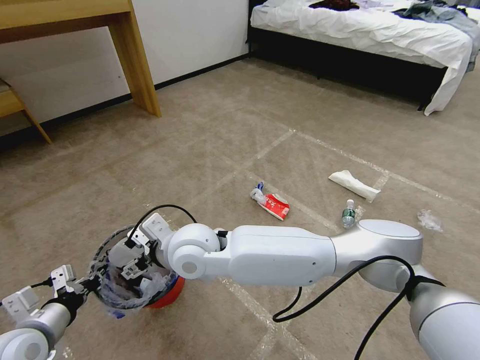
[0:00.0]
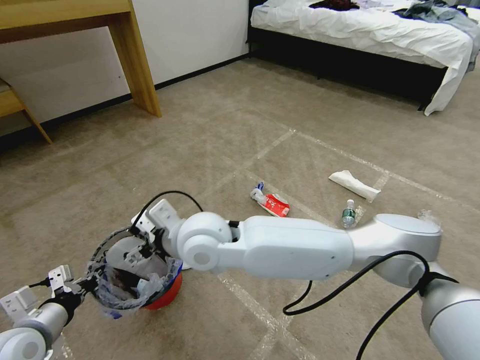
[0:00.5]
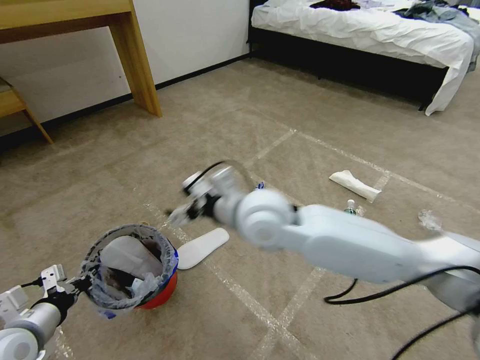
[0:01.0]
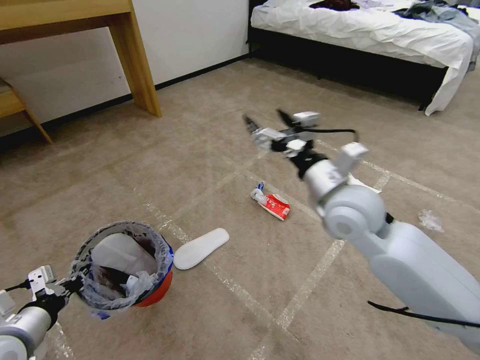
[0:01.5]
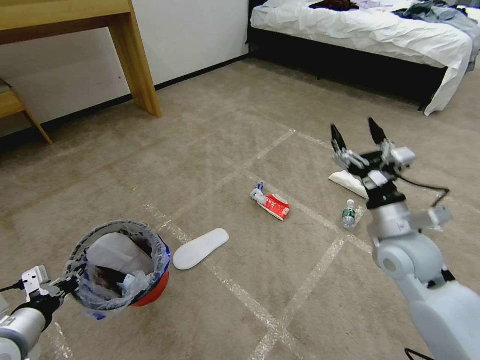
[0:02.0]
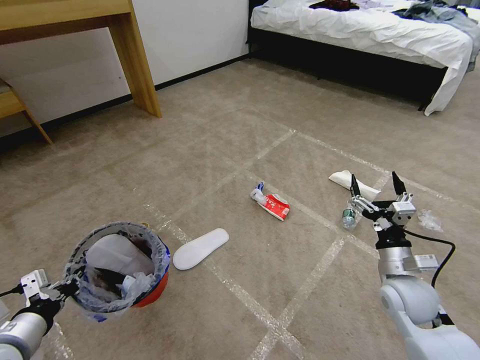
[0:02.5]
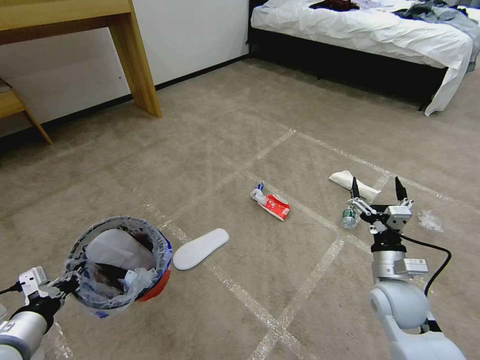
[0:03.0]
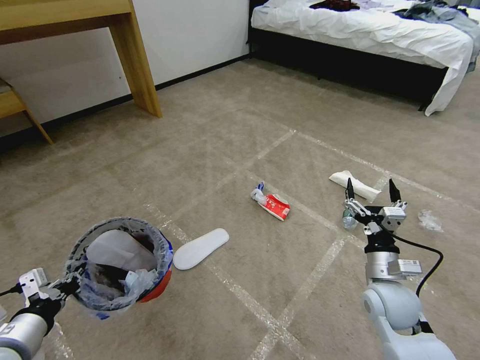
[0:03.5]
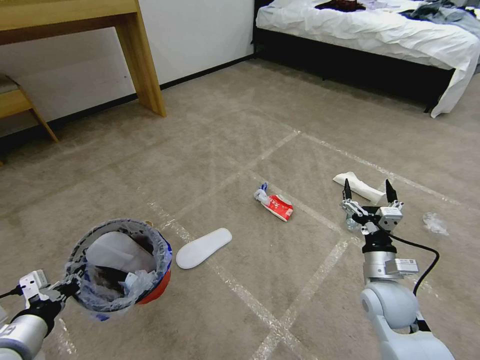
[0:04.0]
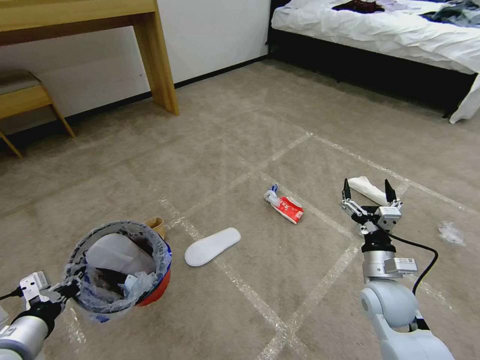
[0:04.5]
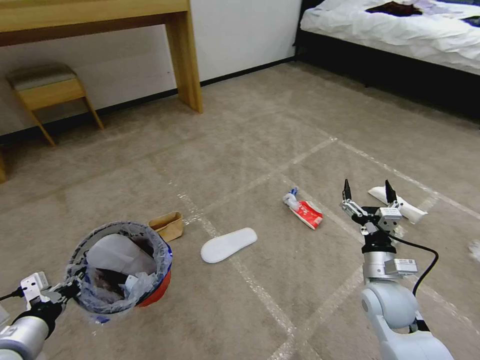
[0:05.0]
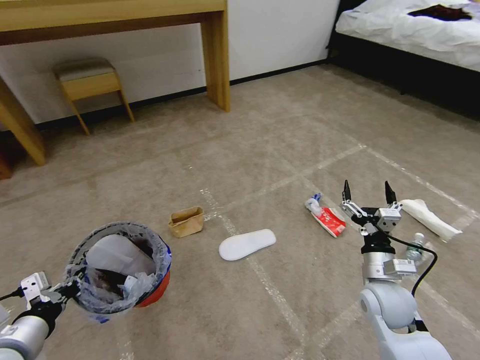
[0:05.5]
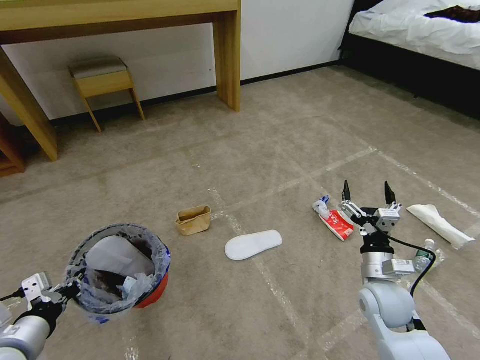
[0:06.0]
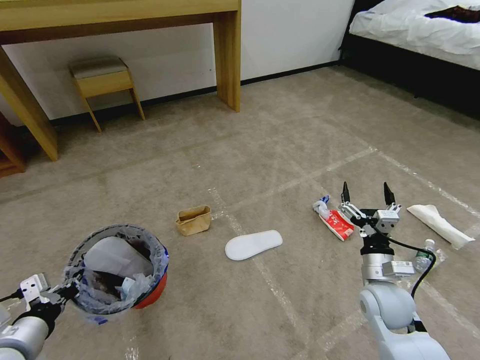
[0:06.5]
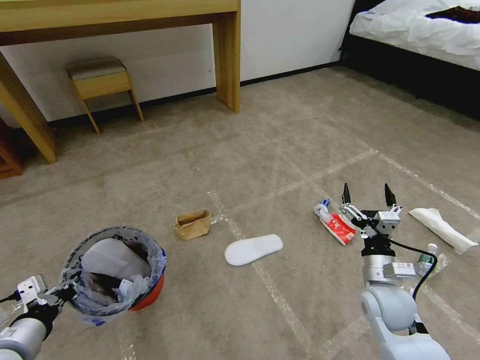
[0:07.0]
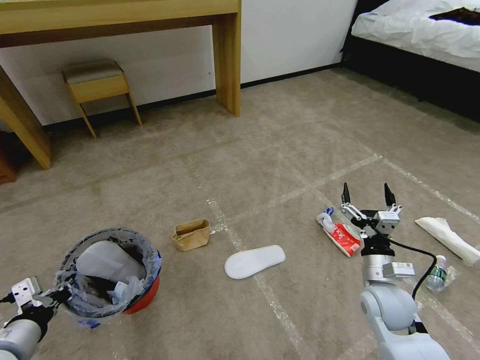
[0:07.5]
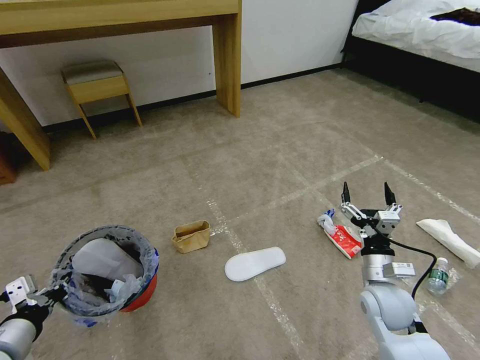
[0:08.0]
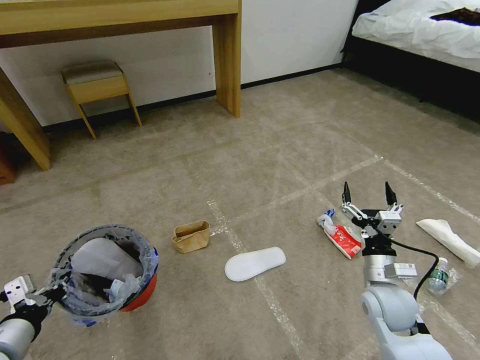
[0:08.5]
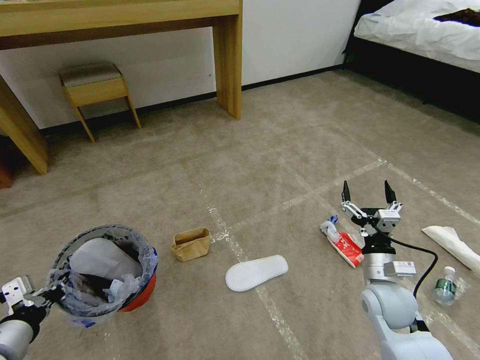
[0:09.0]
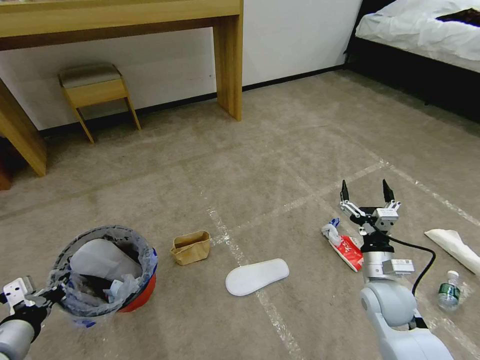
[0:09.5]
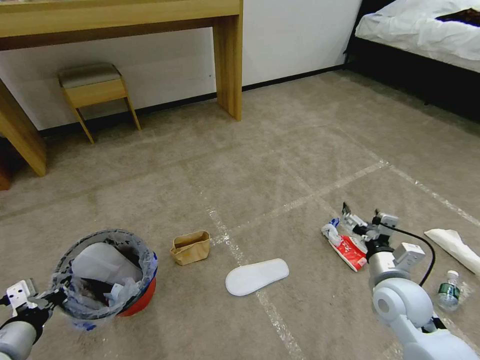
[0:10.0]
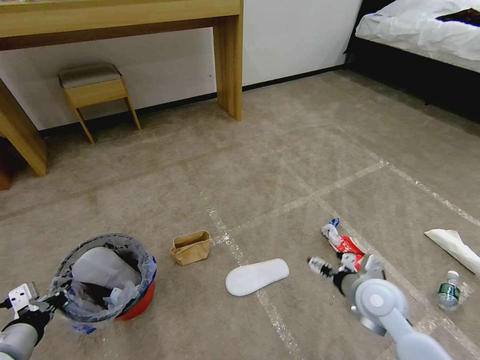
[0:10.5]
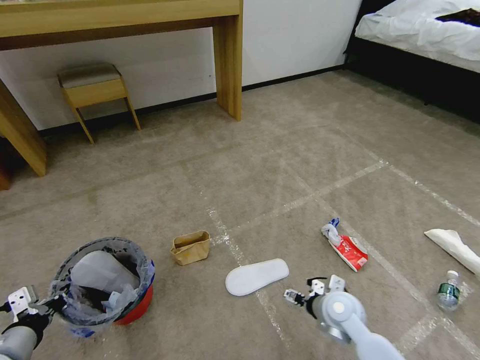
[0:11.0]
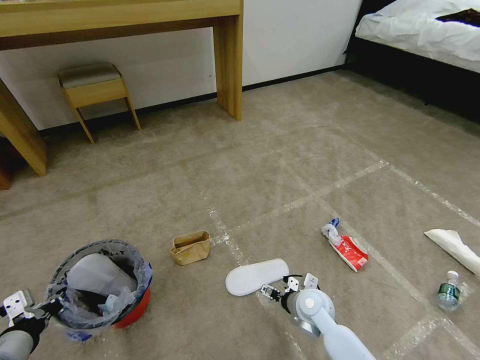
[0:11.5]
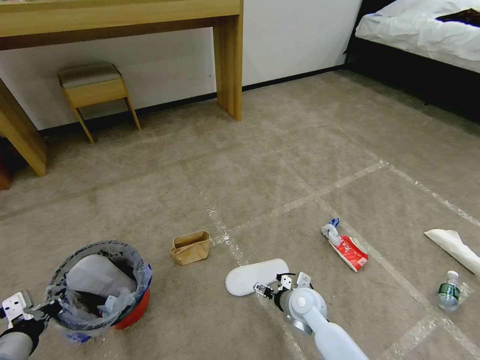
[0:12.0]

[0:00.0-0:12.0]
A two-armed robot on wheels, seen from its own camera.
Task of the whole recording: Pick up the trash bin and place the garbage on the floor into it.
0:00.0 to 0:02.0: The right gripper heads to the right, covering some 40 cm.
0:02.0 to 0:04.0: The right gripper travels downward by about 15 cm.
0:06.0 to 0:08.0: The grippers make only small movements.
0:10.0 to 0:12.0: The right gripper heads to the left and downward, covering about 20 cm.

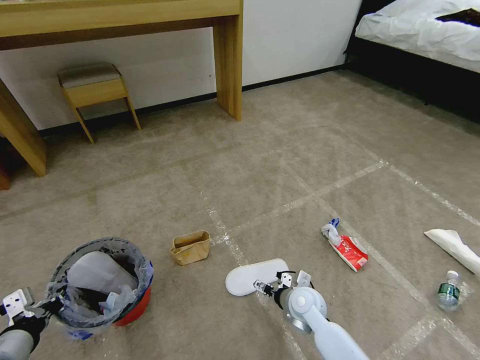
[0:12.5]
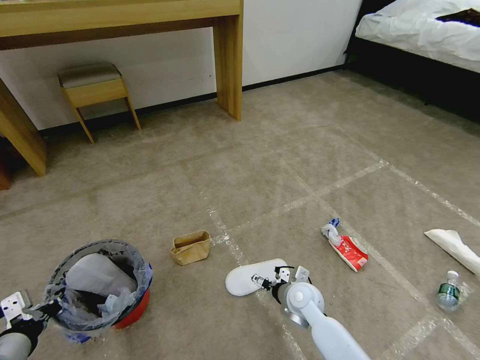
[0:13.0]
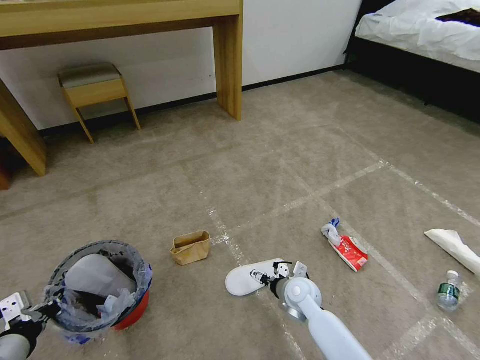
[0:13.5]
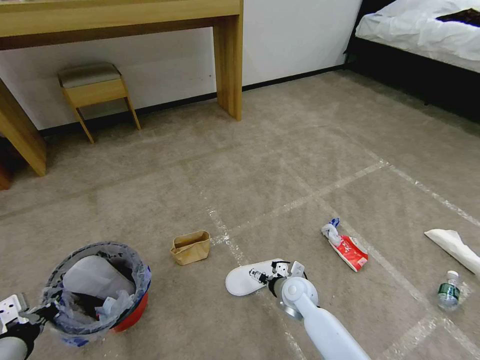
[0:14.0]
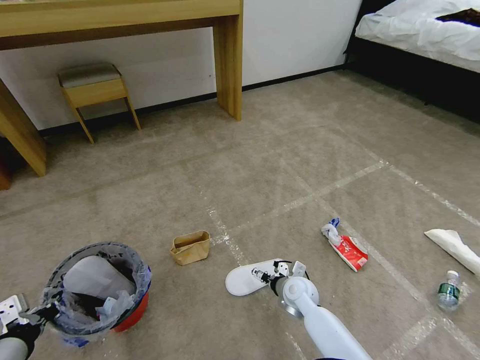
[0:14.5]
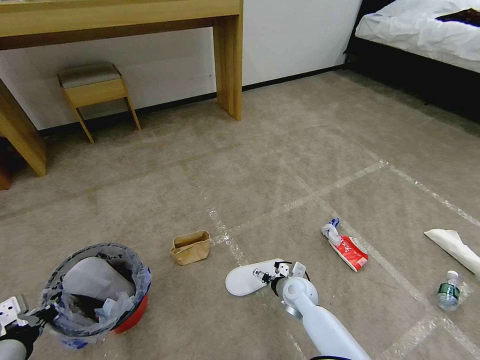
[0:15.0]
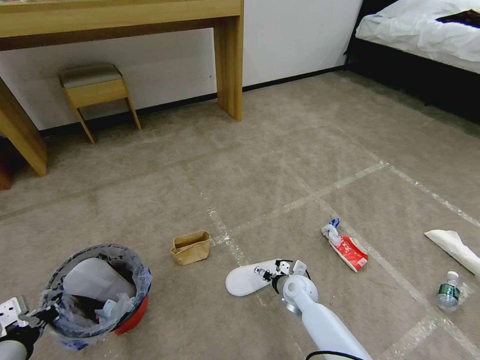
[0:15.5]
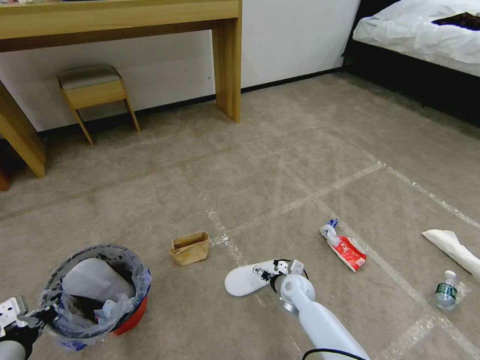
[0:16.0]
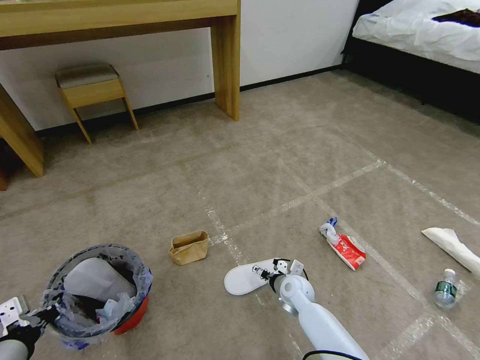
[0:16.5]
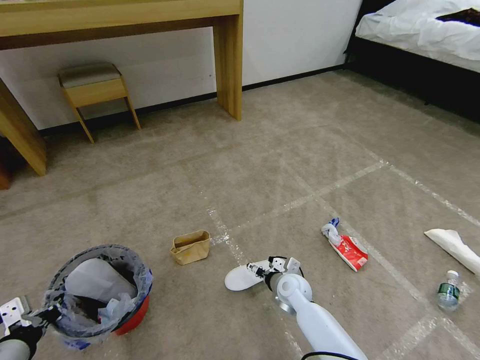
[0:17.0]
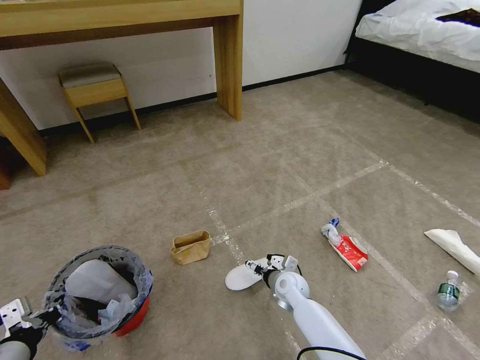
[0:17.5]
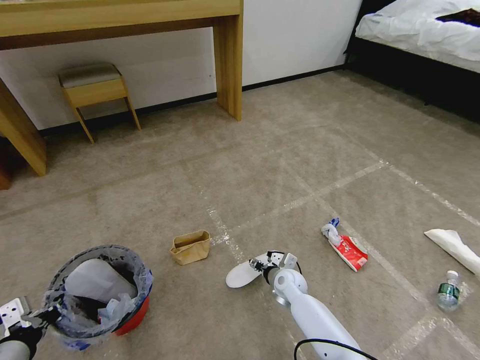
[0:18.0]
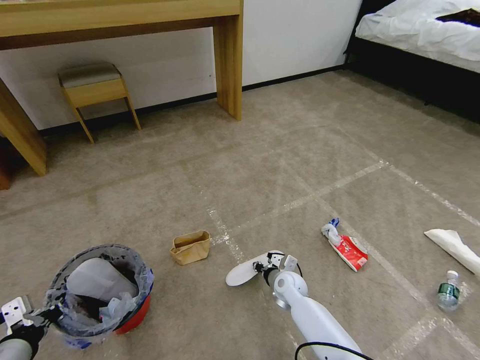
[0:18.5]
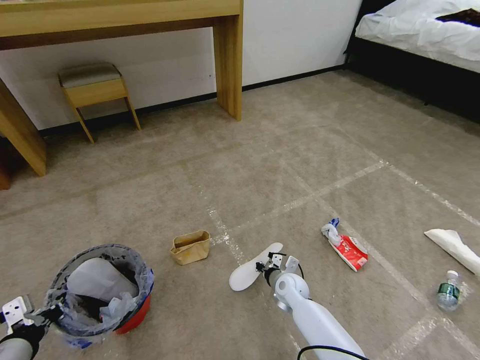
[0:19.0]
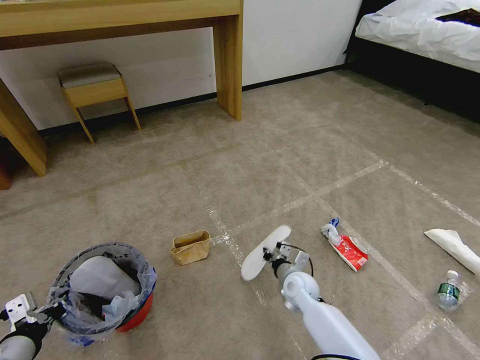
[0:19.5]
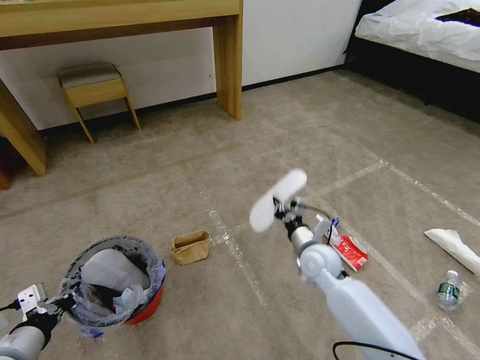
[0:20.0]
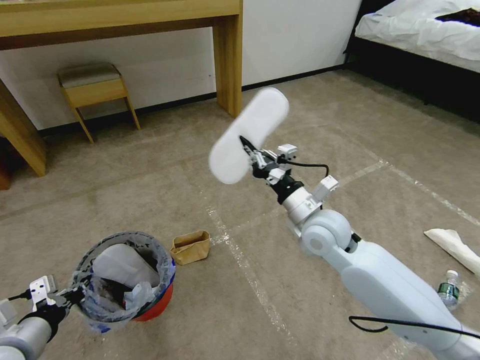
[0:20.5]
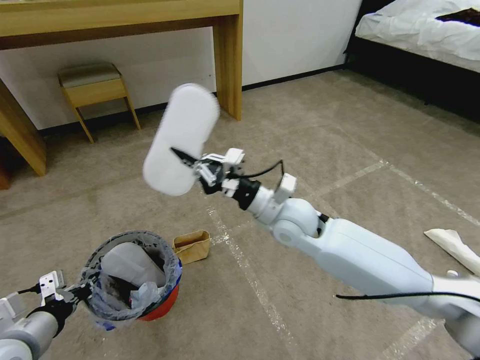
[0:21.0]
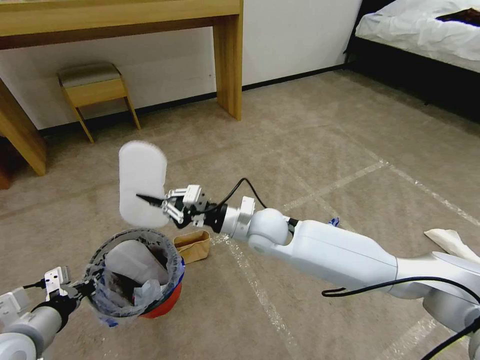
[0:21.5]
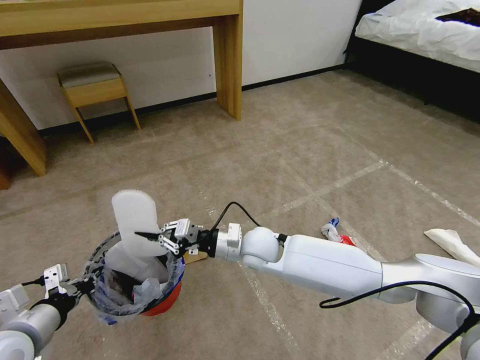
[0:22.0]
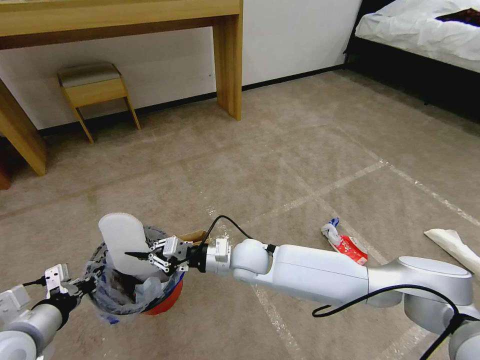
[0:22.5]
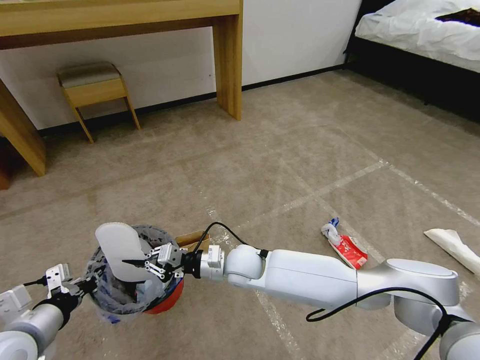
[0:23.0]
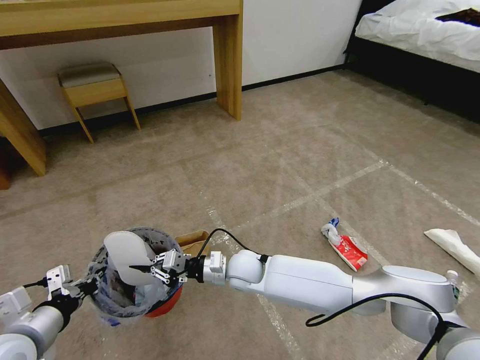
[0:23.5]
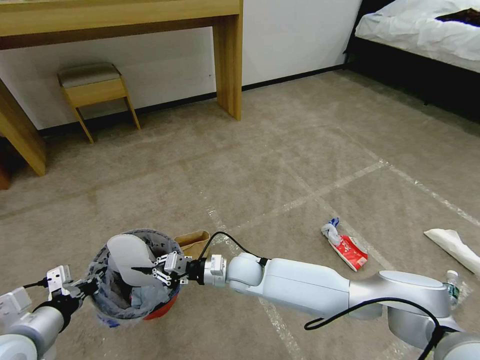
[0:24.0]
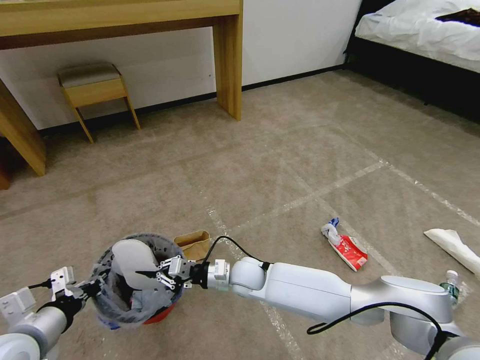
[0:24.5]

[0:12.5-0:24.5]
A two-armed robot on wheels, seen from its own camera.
Task of the whole recording: Pick up the trash bin and place the garbage on the floor into it.
0:12.5 to 0:14.5: There are only small adjustments of the grippers.
0:14.5 to 0:16.5: The grippers move only a little.
0:16.5 to 0:18.5: The right gripper closes its fingers.
0:18.5 to 0:20.5: The right gripper heads upward, covering roughly 30 cm.
0:20.5 to 0:22.5: The right gripper shifts about 20 cm to the left and downward.
0:22.5 to 0:24.5: The right gripper shifts some 10 cm downward.

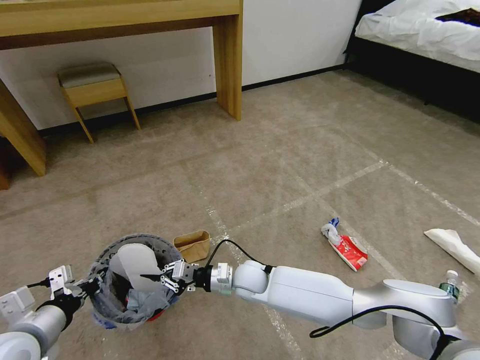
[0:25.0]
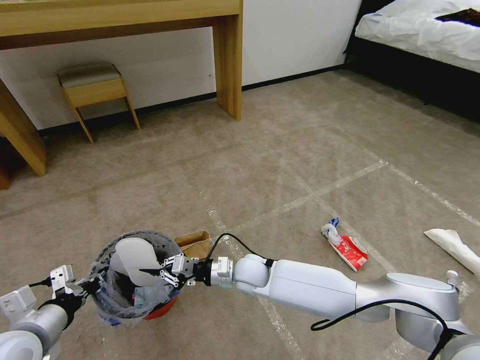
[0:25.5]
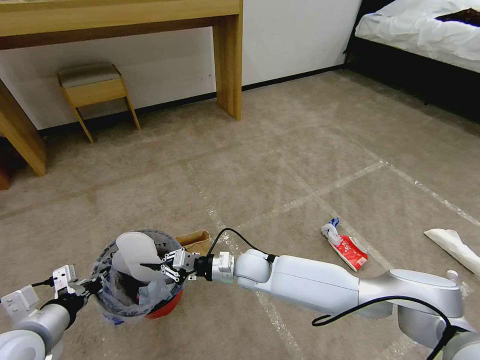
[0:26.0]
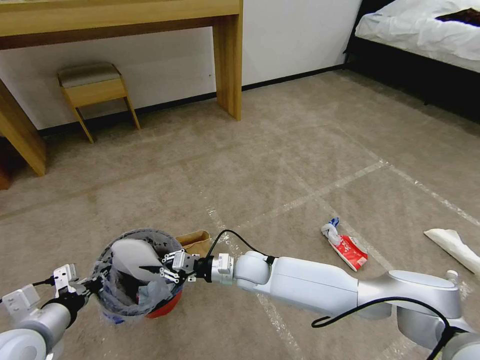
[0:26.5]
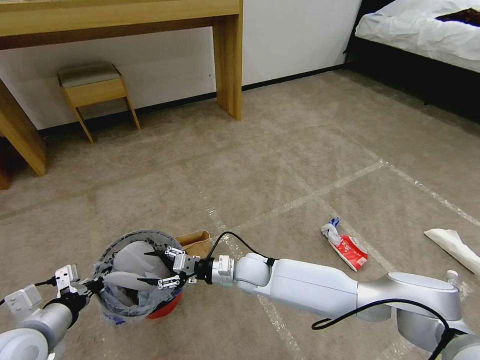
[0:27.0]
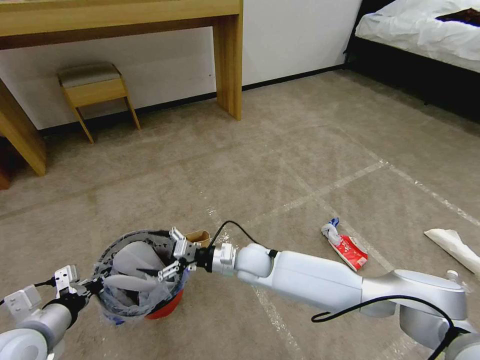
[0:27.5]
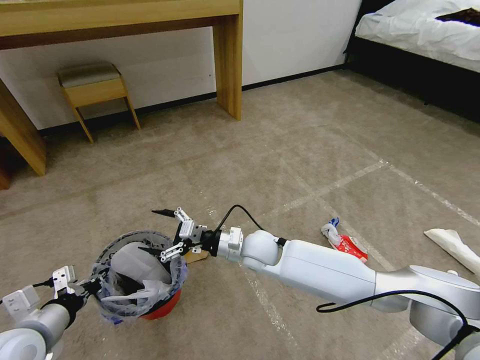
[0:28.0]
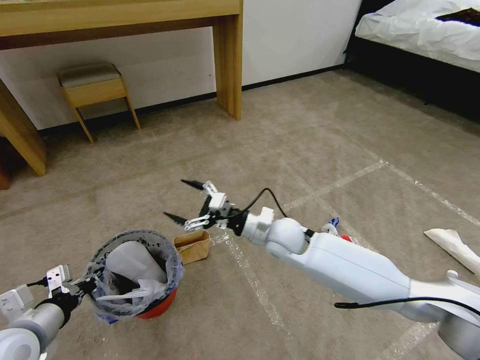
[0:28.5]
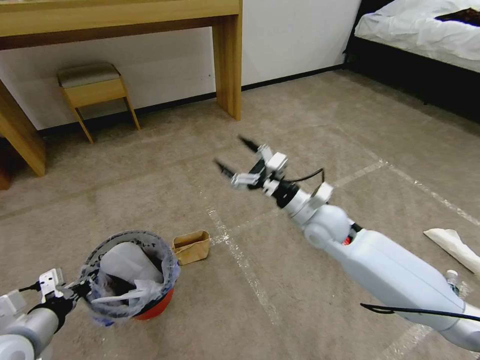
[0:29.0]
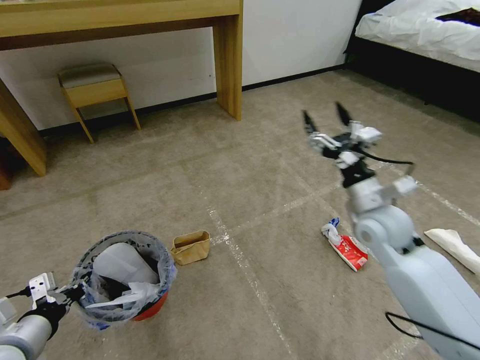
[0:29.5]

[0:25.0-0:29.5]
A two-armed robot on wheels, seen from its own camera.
Task of the whole recording: Pick up the trash bin and place the garbage on the floor into it.
0:25.0 to 0:27.0: The right gripper opens.
0:27.0 to 0:29.5: The right gripper heads to the right and upward, covering about 30 cm.
